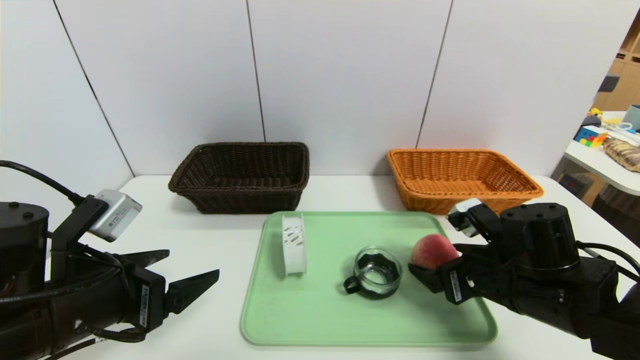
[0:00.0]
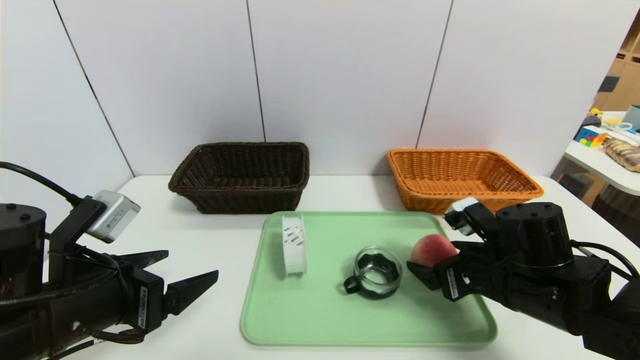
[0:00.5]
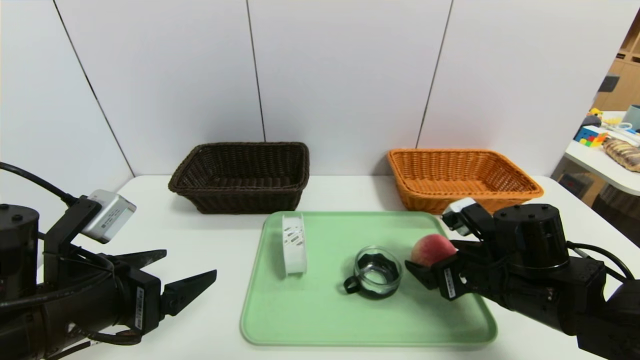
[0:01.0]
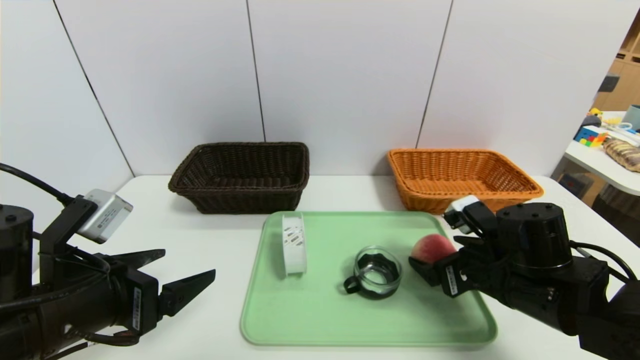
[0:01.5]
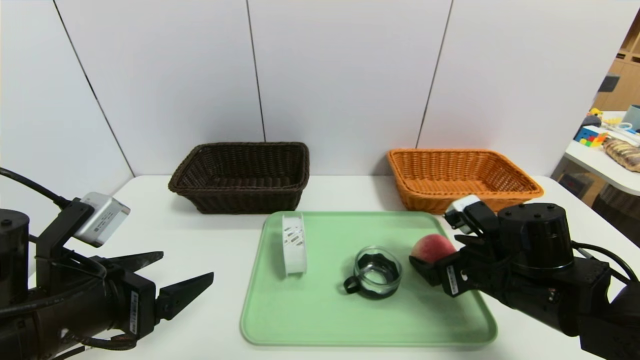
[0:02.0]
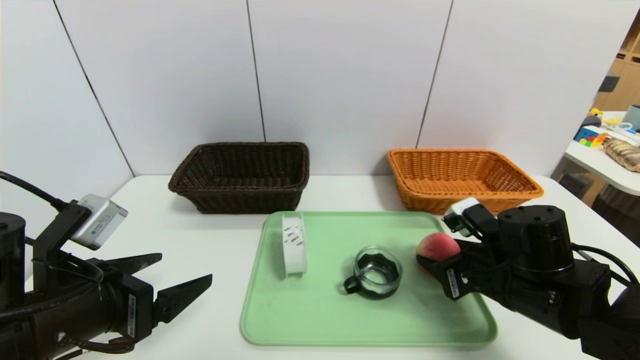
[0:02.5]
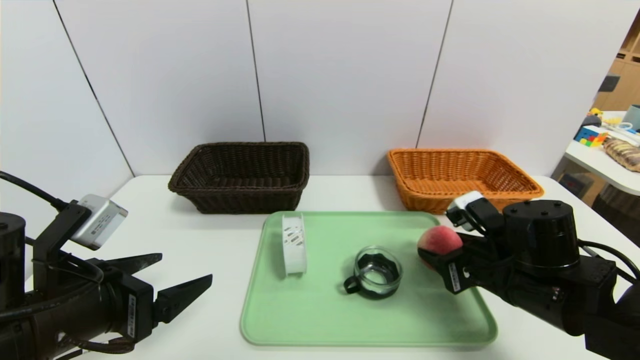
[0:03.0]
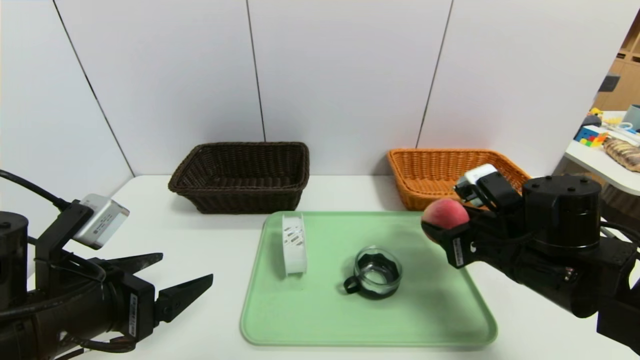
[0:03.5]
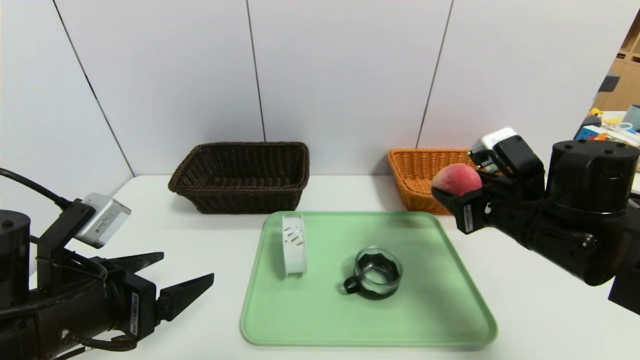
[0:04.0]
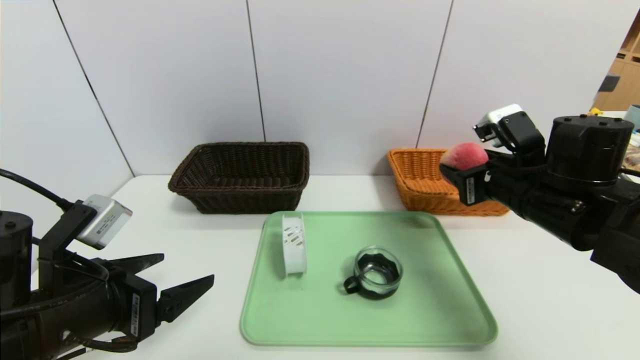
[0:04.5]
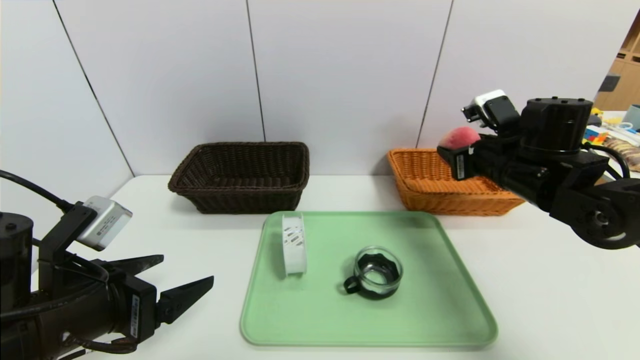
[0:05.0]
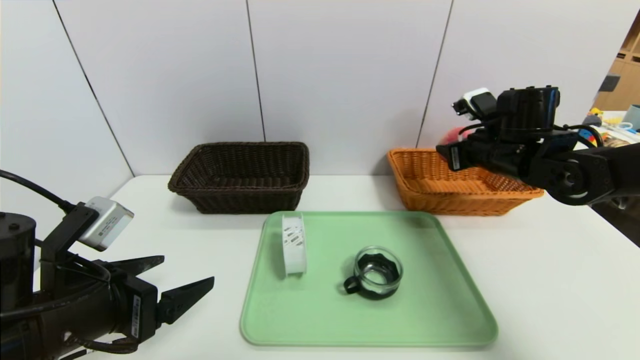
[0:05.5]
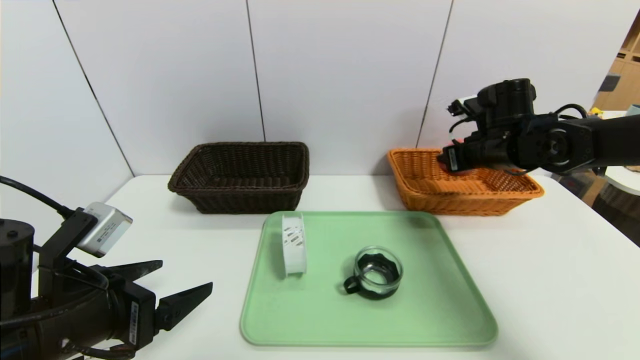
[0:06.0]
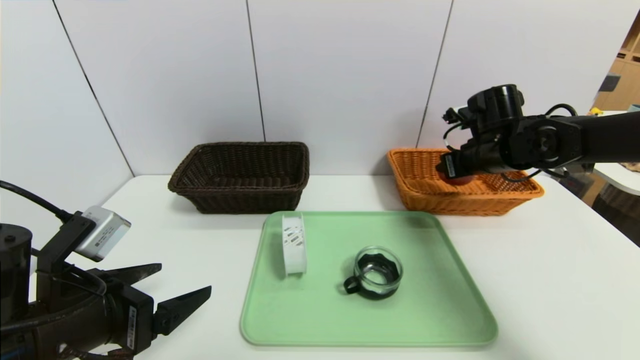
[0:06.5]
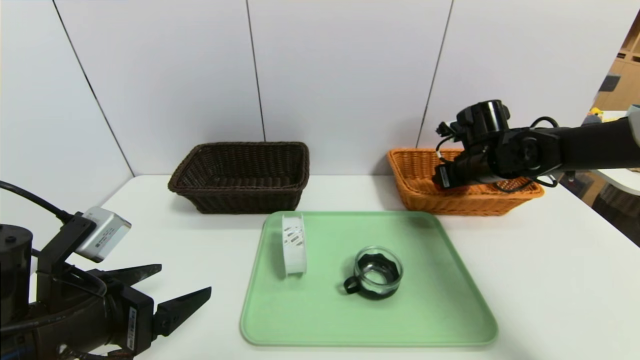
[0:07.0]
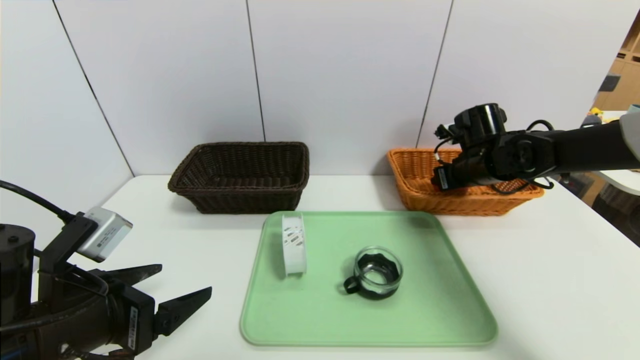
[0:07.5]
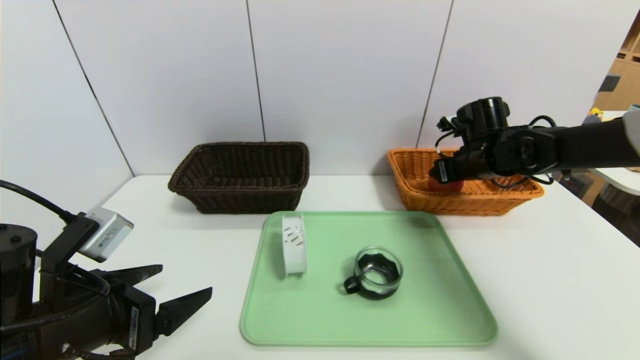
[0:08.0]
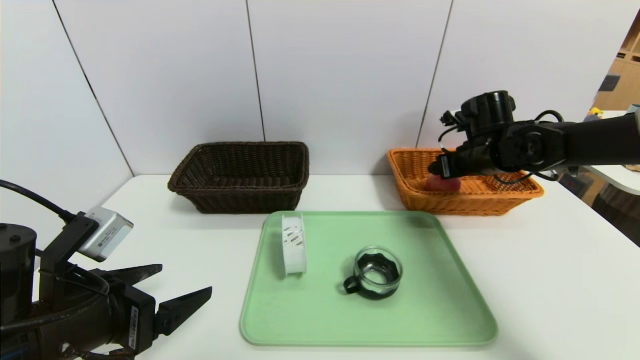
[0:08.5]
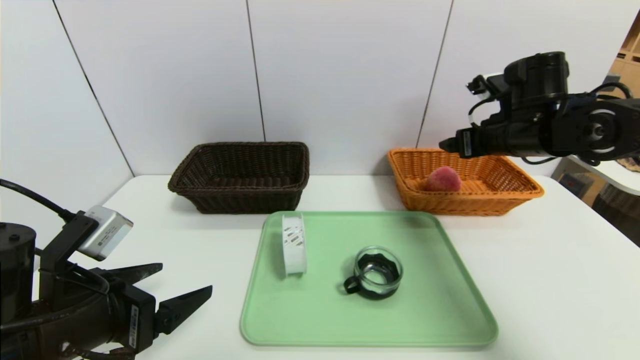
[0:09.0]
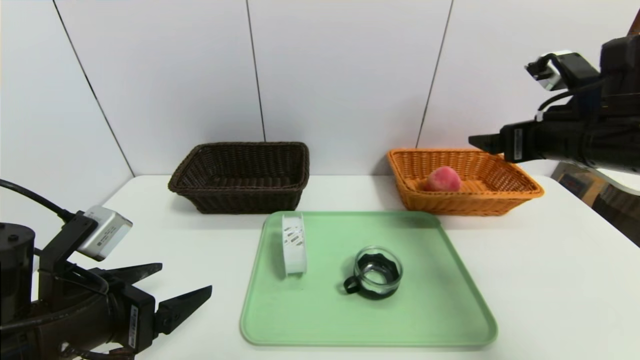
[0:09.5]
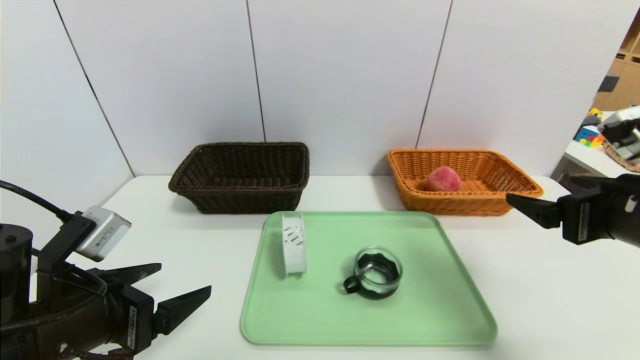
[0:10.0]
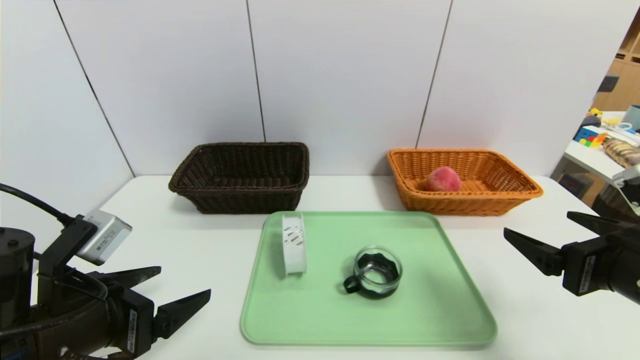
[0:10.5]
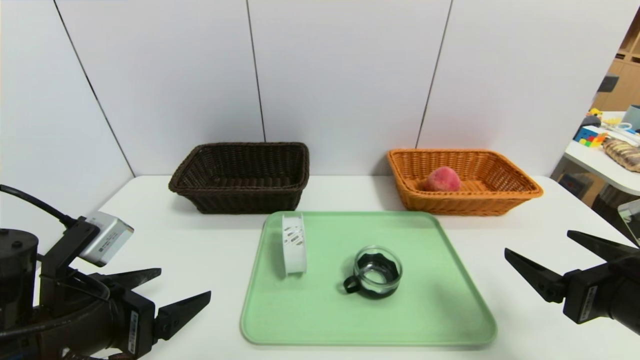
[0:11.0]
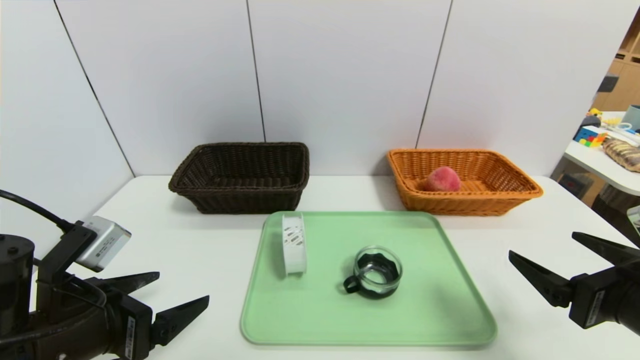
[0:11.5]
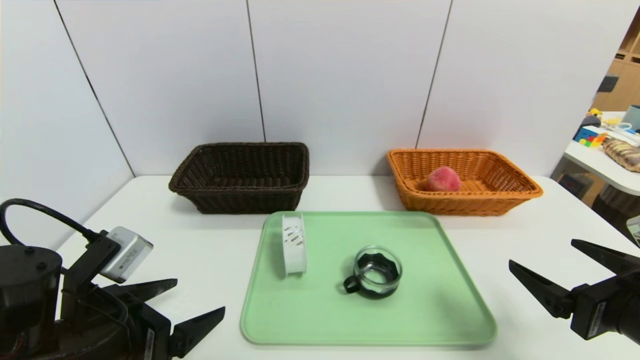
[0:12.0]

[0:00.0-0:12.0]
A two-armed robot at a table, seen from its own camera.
Task of the whole recording: place the food in the right basket with the right gripper, and place the non food items in the left basket with the left gripper.
Step, 0:00.0 to 0:08.5: Grasp the peach and put it in the right basket.
0:00.0 to 0:02.0: The grippers move only a little.
0:02.0 to 0:04.0: The right gripper moves upward, approximately 10 cm, and closes its fingers.
0:04.0 to 0:06.0: The right gripper moves forward, roughly 15 cm.
0:06.0 to 0:08.0: The right gripper opens up.
0:08.0 to 0:10.0: The right gripper goes roughly 25 cm backward, and opens.
0:10.0 to 0:12.0: The right gripper travels downward and backward by some 10 cm.

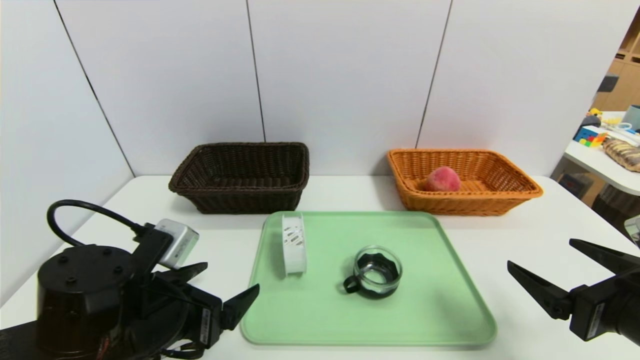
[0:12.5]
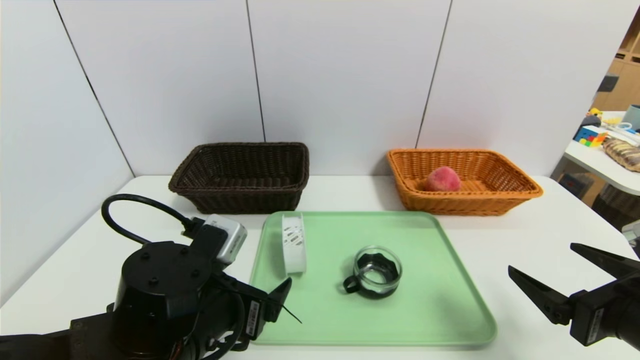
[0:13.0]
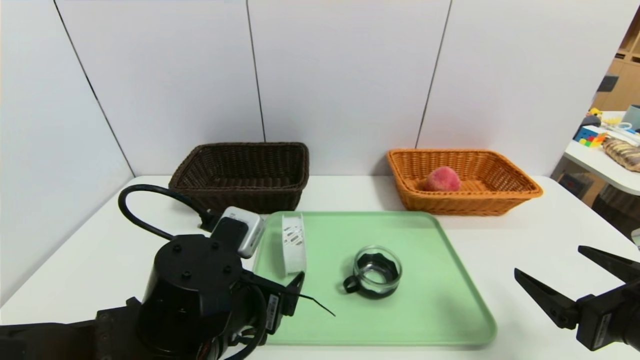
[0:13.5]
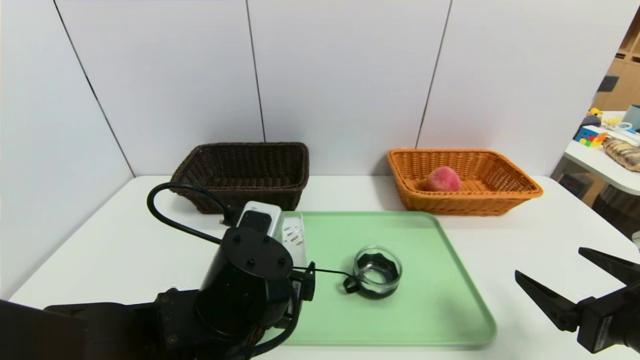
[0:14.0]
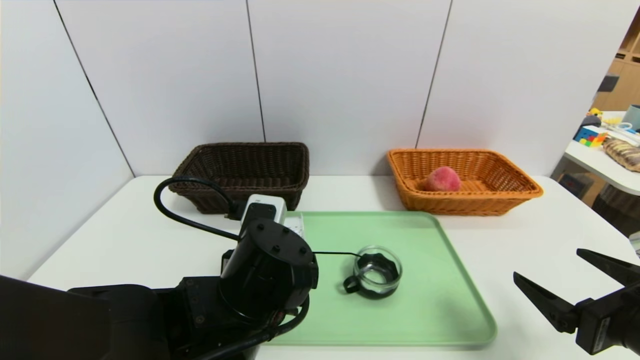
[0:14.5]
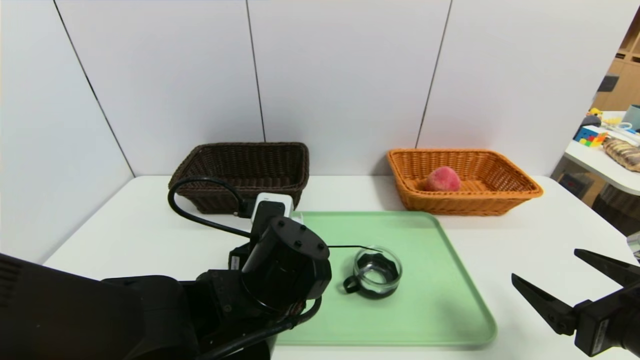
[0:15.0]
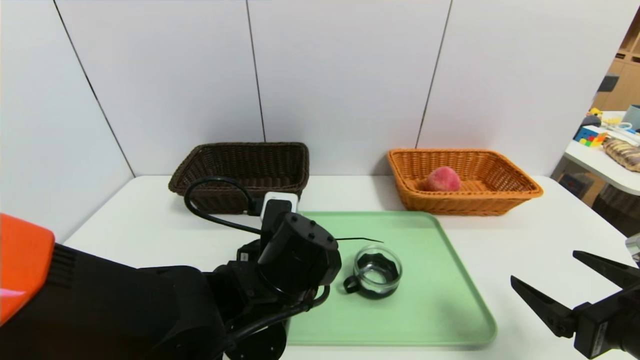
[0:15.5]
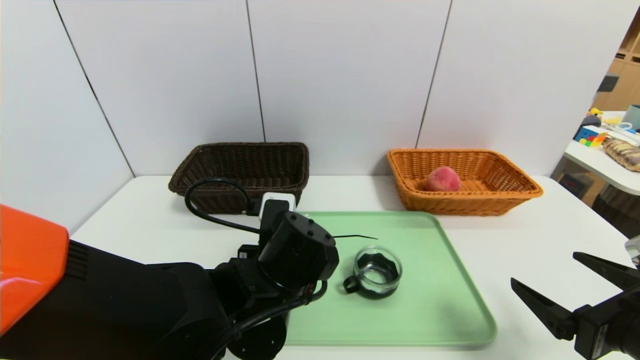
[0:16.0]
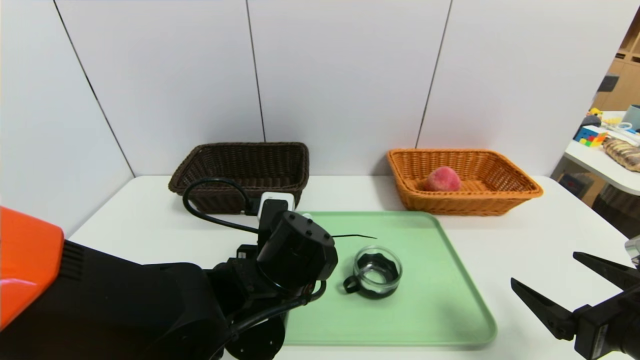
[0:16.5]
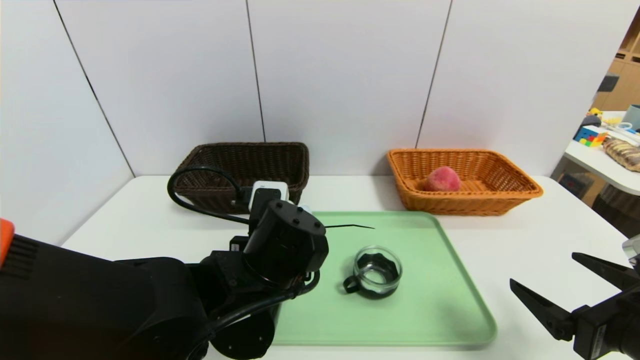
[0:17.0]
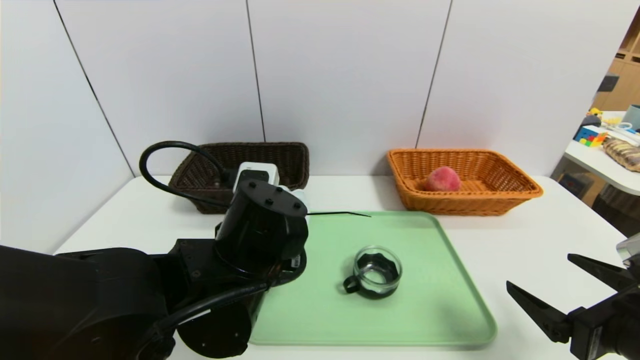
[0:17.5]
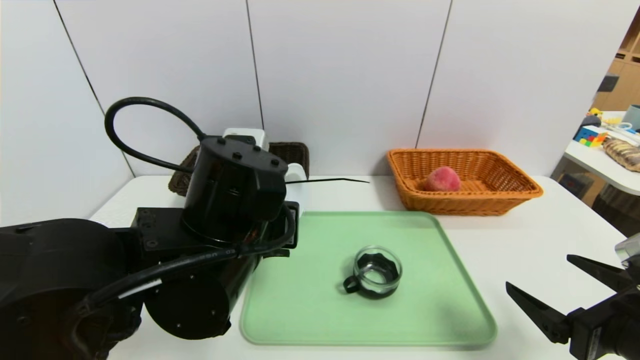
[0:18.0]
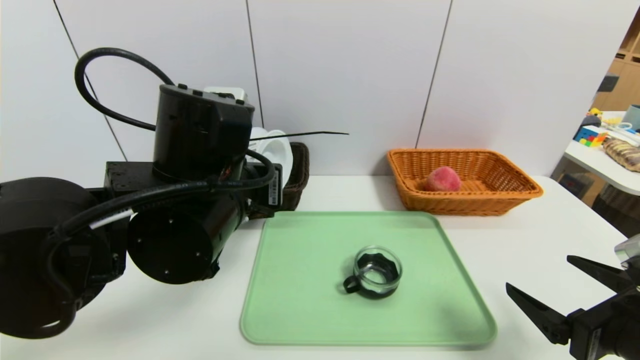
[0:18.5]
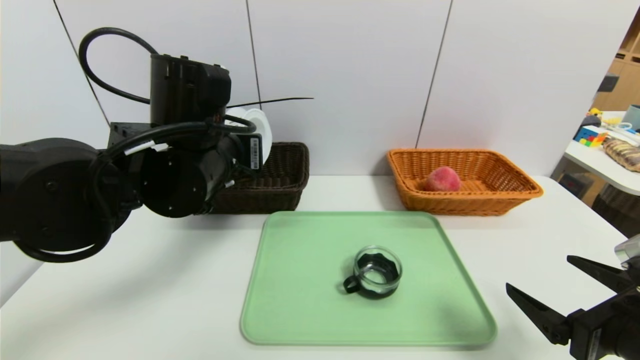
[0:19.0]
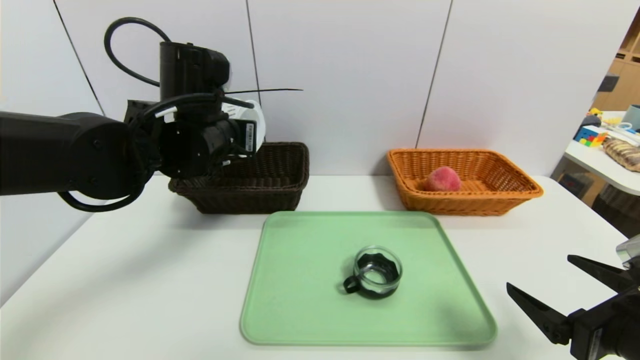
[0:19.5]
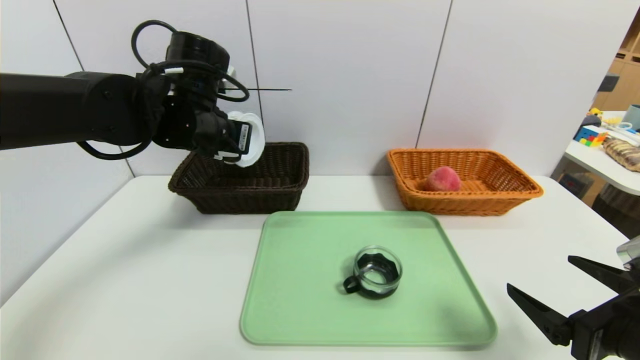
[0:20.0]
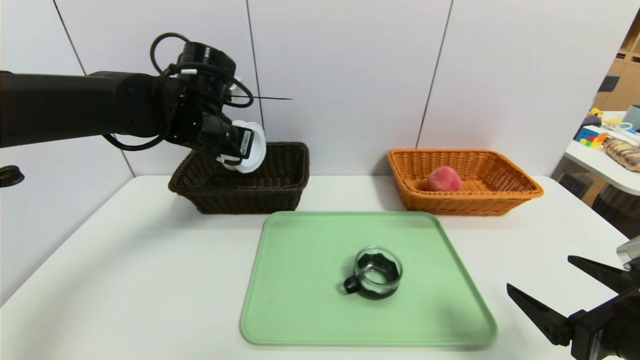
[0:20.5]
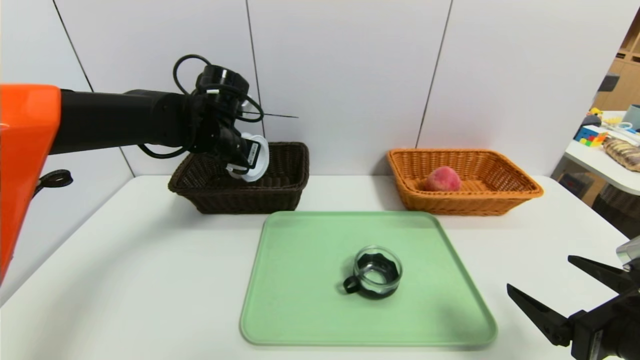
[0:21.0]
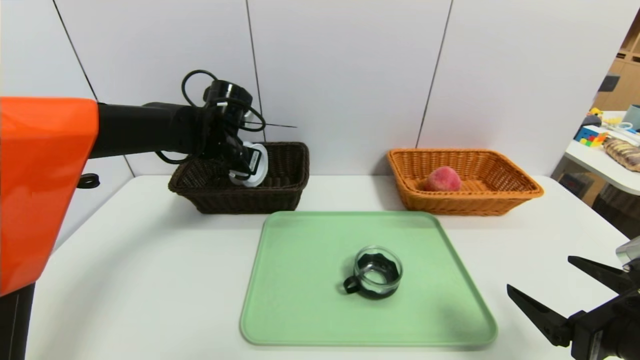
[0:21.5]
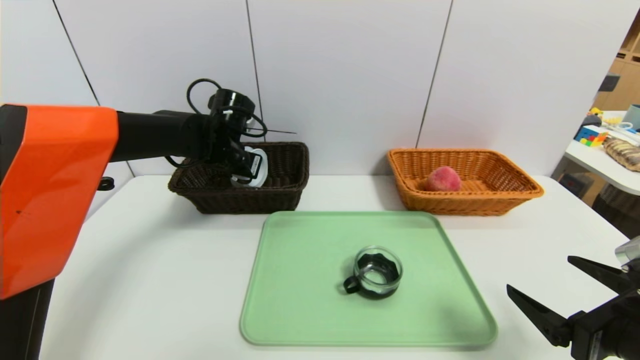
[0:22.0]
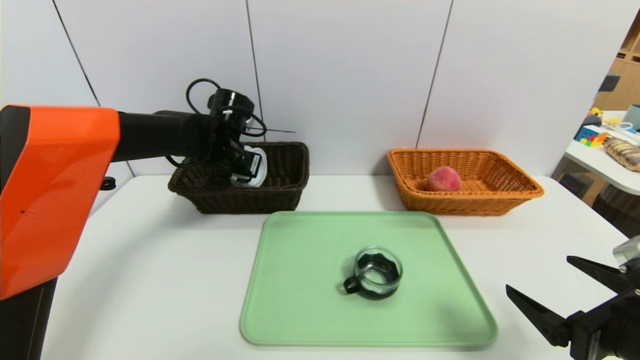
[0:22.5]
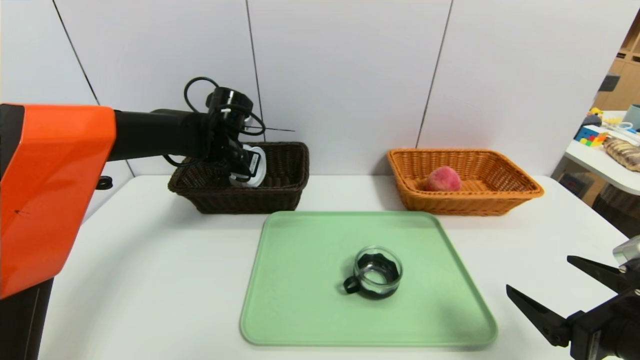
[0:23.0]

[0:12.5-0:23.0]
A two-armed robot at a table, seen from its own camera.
Task of the whole recording: place the food in the right basket with the right gripper, and place the non food items in the left basket with the left gripper.
0:12.5 to 0:14.5: The left gripper is displaced to the right by roughly 10 cm.
0:14.5 to 0:16.5: The left gripper closes up.
0:16.5 to 0:19.0: The left gripper travels upward, to the left and forward by approximately 15 cm.
0:19.0 to 0:21.0: The left gripper is displaced forward by approximately 15 cm.
0:21.0 to 0:23.0: The left gripper shifts by approximately 5 cm.
